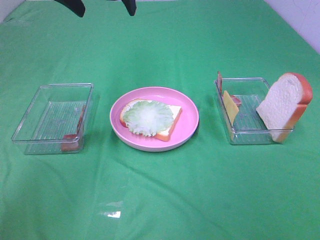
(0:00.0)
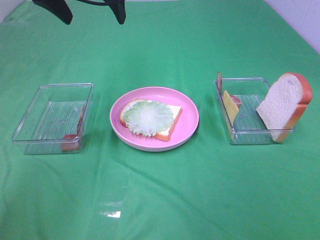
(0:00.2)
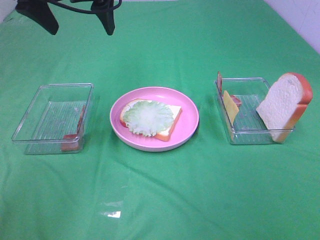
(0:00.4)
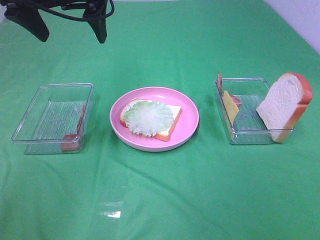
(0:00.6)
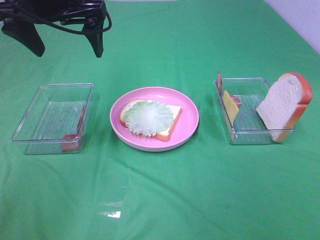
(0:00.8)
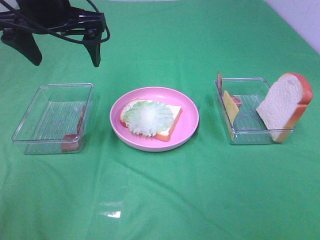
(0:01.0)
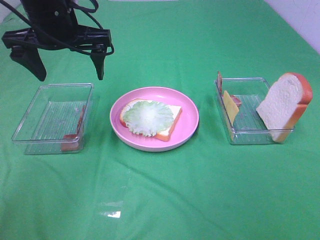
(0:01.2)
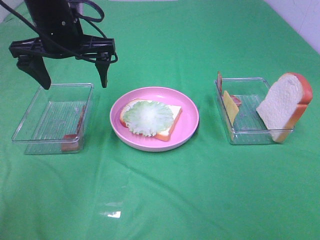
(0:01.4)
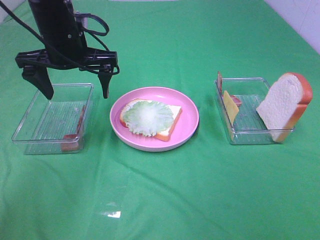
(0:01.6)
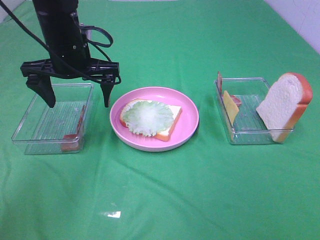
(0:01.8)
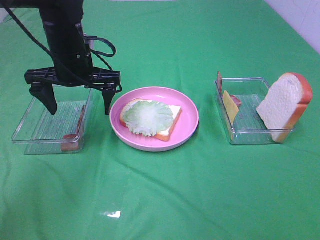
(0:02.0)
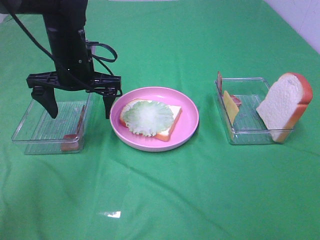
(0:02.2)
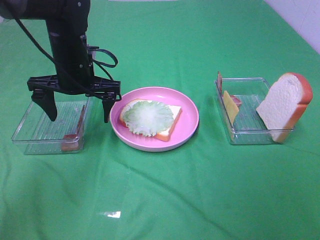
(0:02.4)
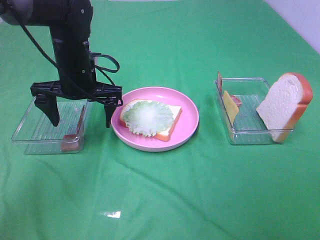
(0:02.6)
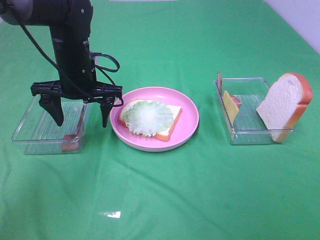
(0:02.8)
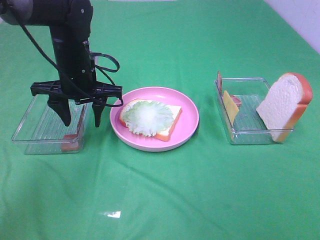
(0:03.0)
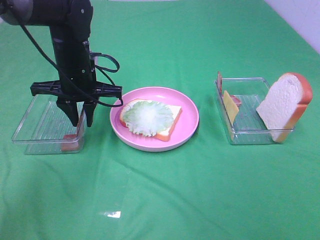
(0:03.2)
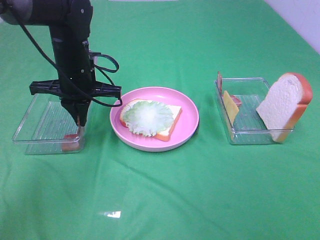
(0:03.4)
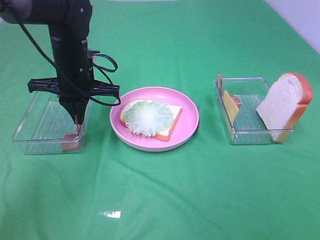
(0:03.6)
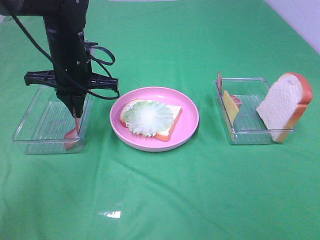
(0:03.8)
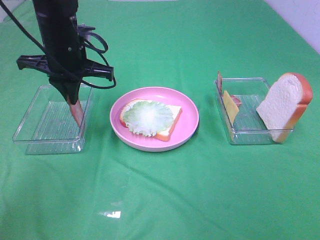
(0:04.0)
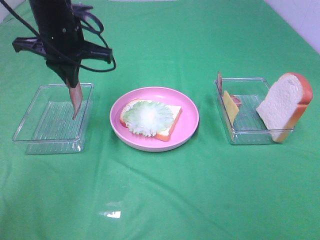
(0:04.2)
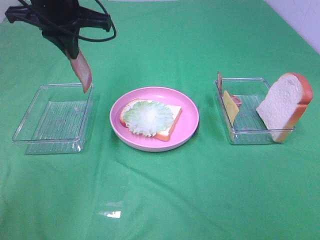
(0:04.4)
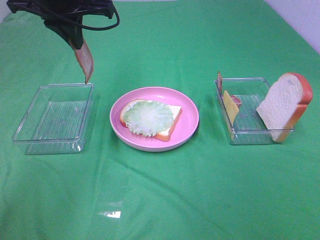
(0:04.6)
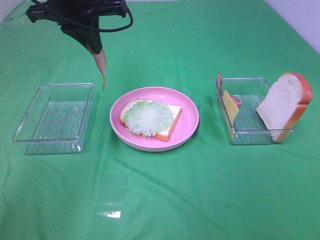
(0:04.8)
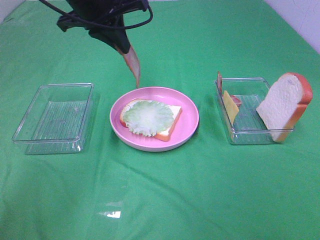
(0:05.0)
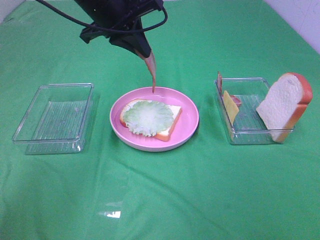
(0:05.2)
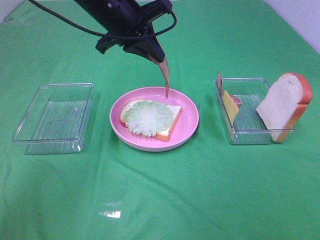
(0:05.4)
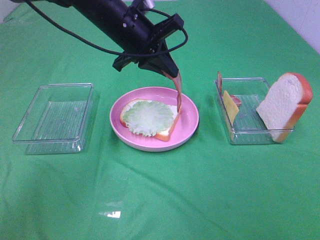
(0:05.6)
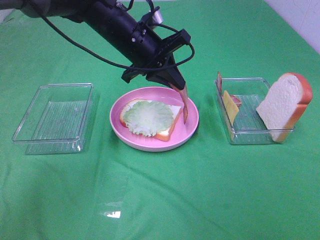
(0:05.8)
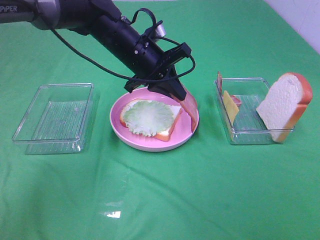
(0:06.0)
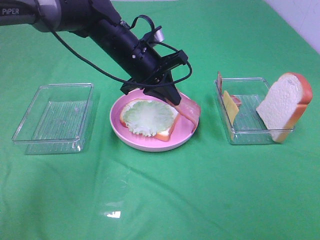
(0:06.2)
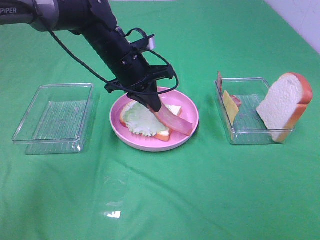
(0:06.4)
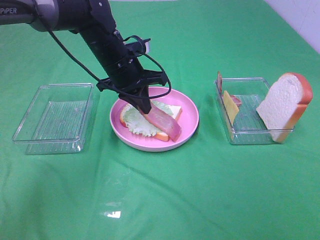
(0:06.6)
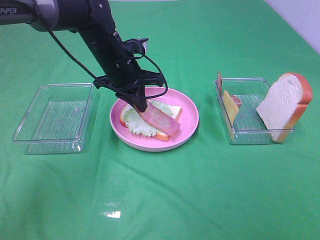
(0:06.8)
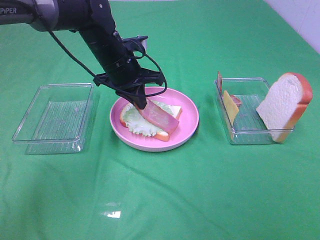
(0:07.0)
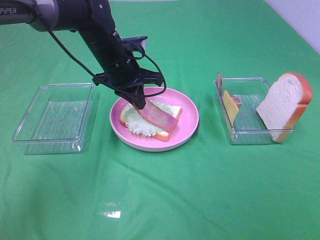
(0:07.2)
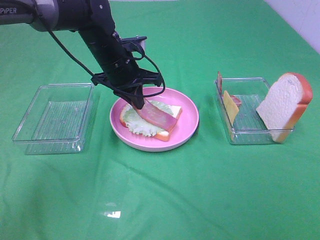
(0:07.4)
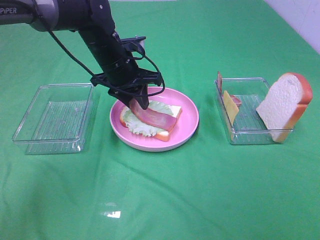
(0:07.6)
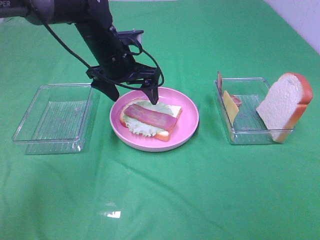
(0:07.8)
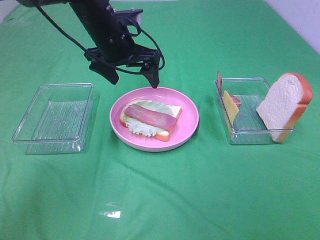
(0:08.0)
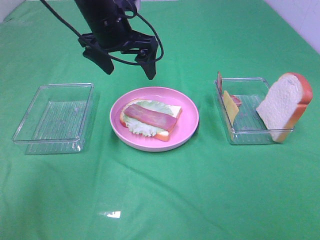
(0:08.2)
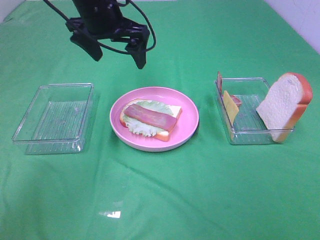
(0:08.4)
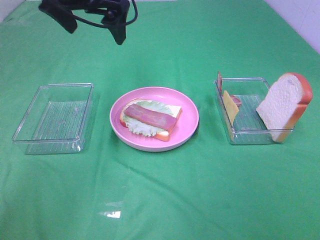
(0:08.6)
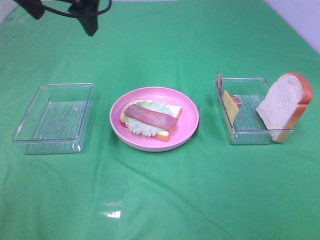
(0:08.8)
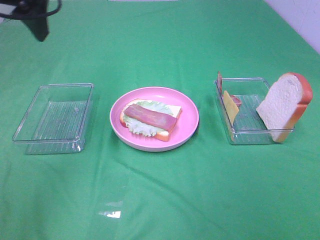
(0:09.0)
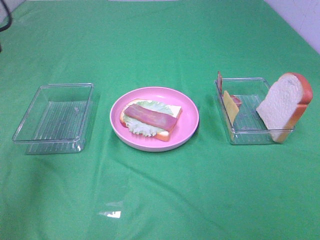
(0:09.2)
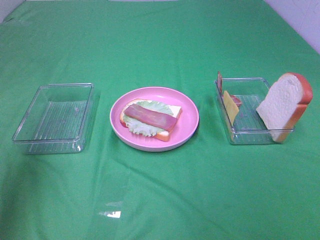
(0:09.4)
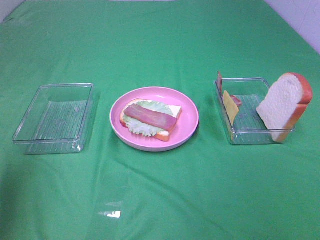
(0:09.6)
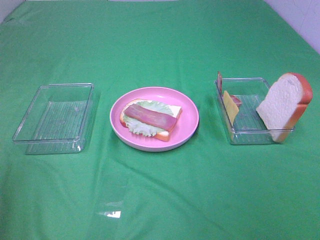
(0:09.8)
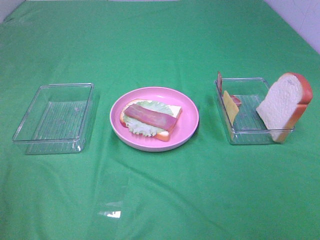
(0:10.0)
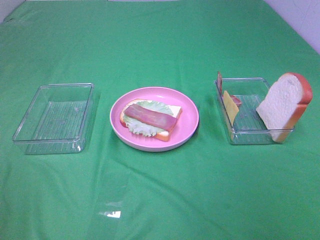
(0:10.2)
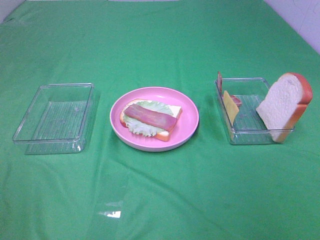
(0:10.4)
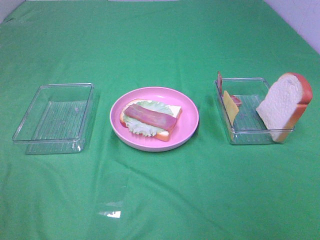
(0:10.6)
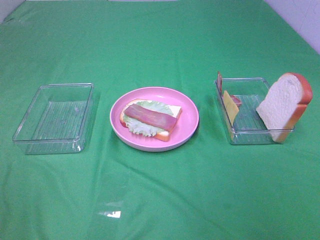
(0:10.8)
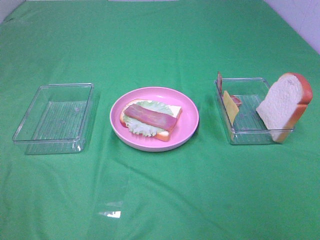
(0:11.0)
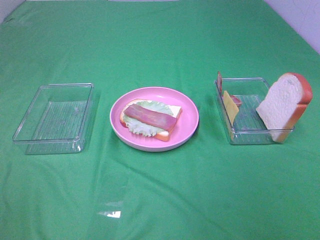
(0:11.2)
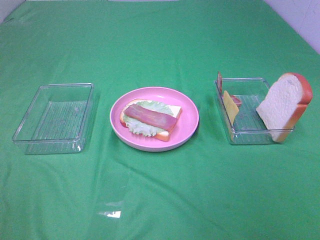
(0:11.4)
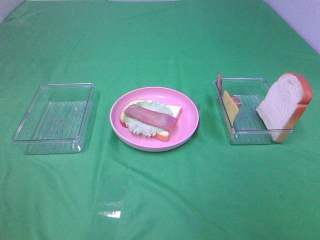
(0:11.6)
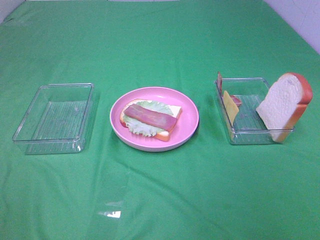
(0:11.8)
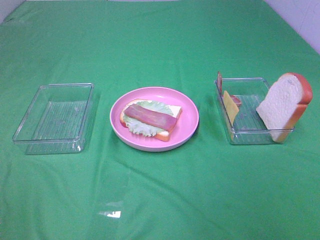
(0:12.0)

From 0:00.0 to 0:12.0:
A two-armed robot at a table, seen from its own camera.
Task of the whole recording: Make sandwiches.
Step, from 0:00.0 to 0:03.6: Left hand:grab the bacon.
Step, from 0:03.8 to 0:07.8: Left hand:place bacon on lettuce slice.
From 0:00.0 to 0:01.6: The left gripper moves downward, roughly 10 cm.
From 0:01.6 to 0:03.0: The left gripper travels downward by some 5 cm, and closes up.
From 0:03.0 to 0:04.4: The left gripper is displaced upward by approximately 15 cm, and closes up.
From 0:04.4 to 0:06.0: The left gripper shifts roughly 15 cm downward and to the right.
From 0:06.0 to 0:07.6: The left gripper opens up.
From 0:07.6 to 0:09.0: The left gripper heads upward, to the left and backward, covering approximately 25 cm, and opens its fingers.
From 0:09.0 to 0:10.4: The left gripper moves backward, some 30 cm.

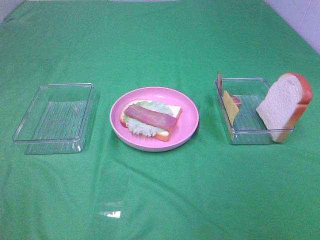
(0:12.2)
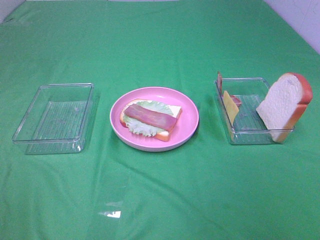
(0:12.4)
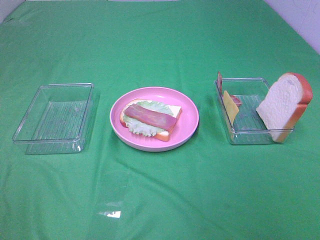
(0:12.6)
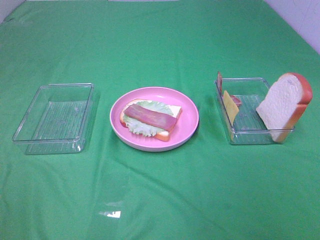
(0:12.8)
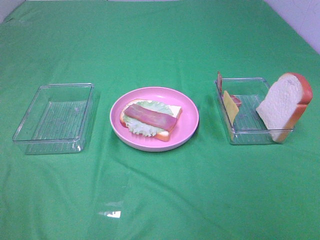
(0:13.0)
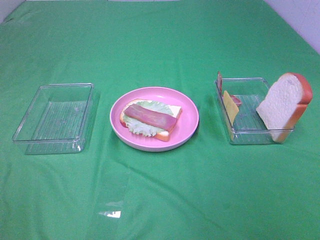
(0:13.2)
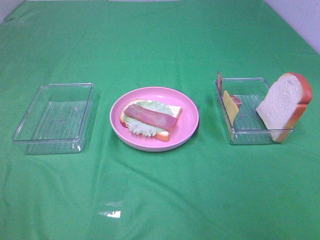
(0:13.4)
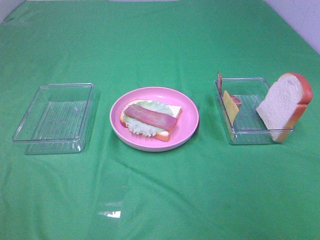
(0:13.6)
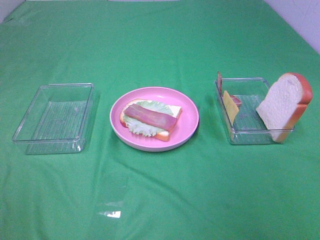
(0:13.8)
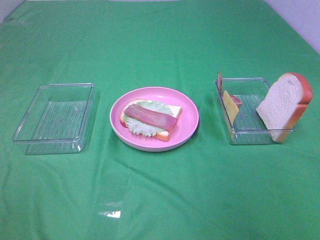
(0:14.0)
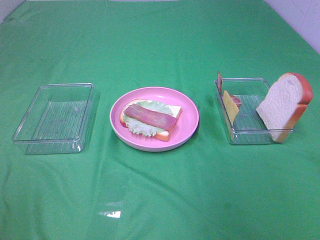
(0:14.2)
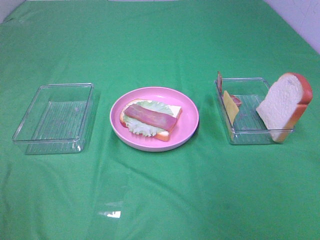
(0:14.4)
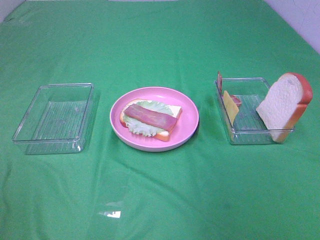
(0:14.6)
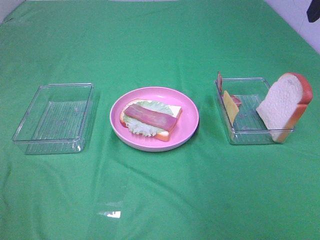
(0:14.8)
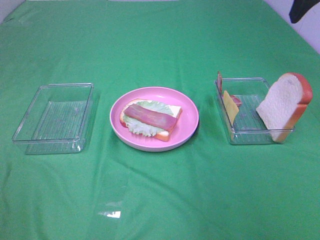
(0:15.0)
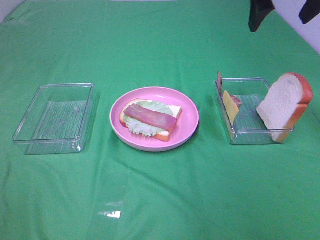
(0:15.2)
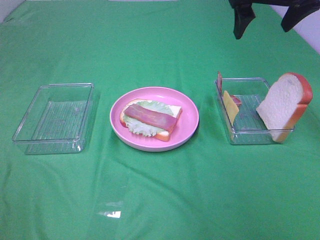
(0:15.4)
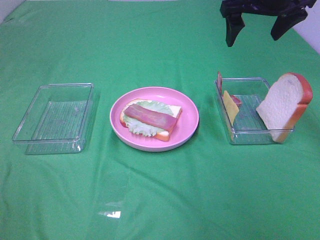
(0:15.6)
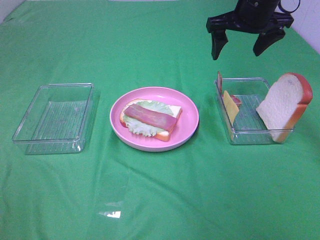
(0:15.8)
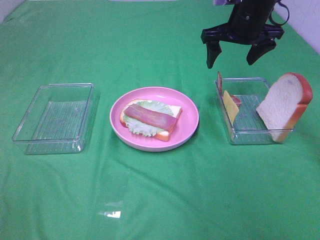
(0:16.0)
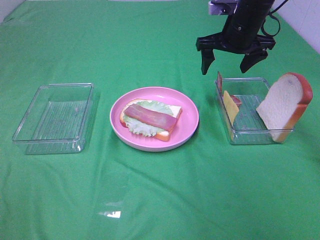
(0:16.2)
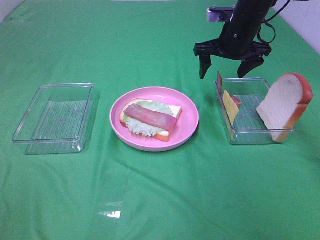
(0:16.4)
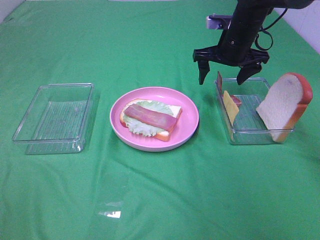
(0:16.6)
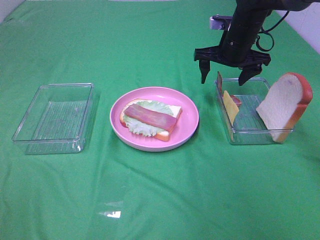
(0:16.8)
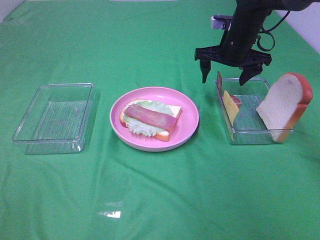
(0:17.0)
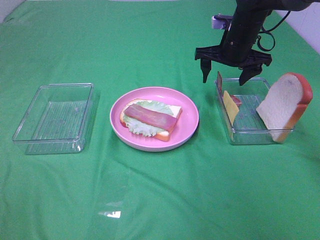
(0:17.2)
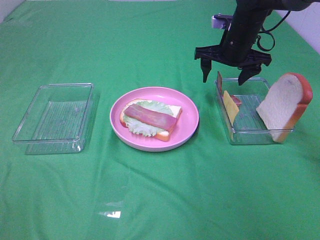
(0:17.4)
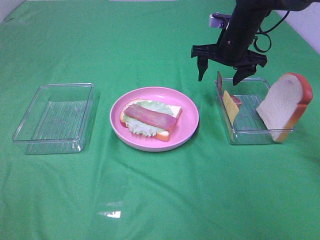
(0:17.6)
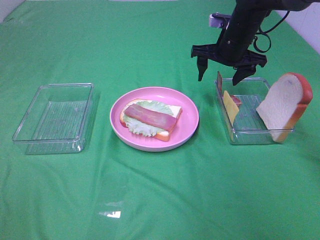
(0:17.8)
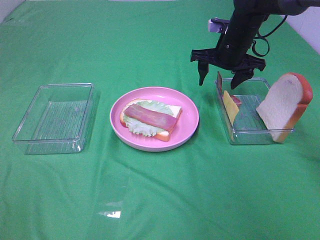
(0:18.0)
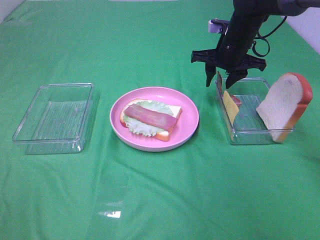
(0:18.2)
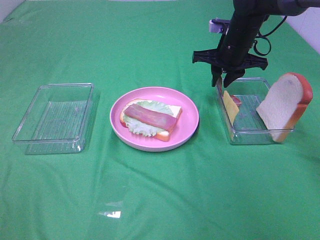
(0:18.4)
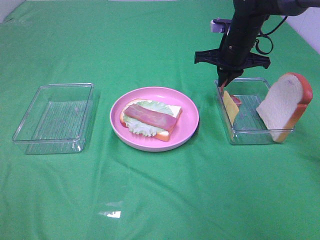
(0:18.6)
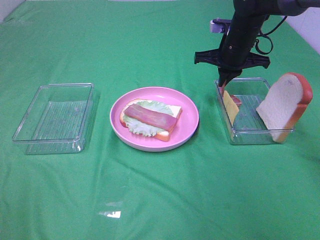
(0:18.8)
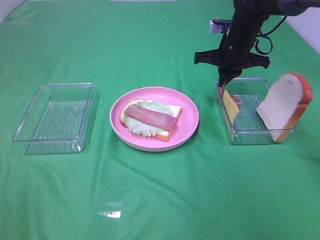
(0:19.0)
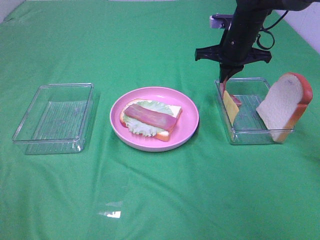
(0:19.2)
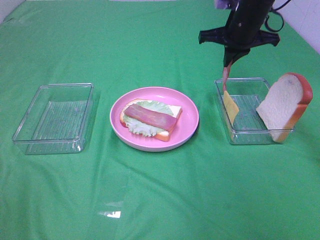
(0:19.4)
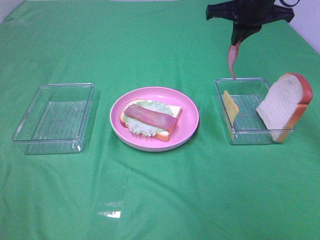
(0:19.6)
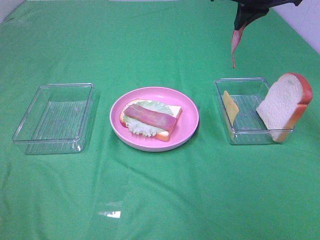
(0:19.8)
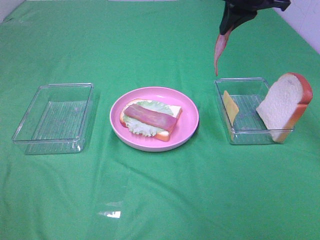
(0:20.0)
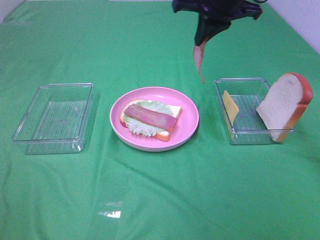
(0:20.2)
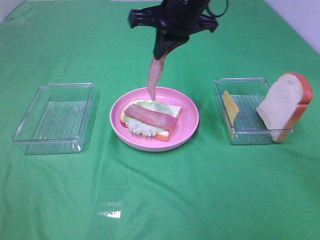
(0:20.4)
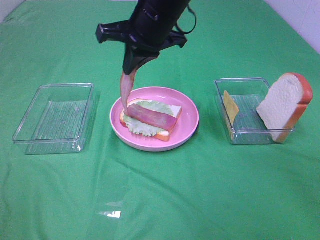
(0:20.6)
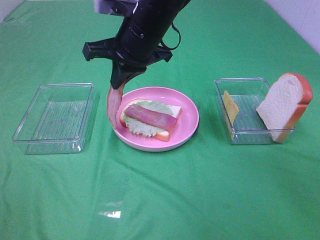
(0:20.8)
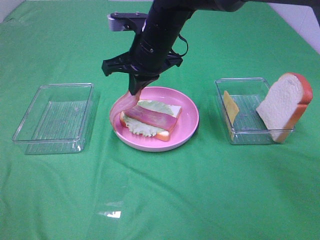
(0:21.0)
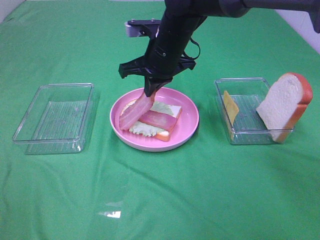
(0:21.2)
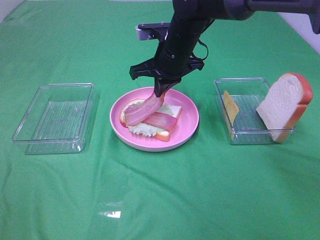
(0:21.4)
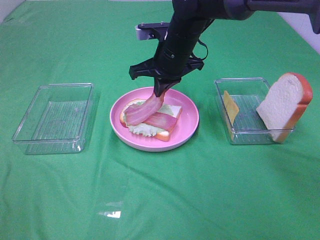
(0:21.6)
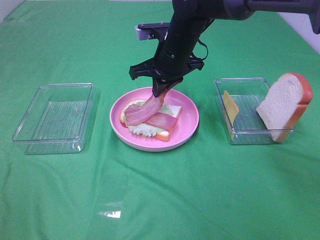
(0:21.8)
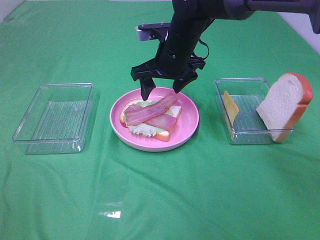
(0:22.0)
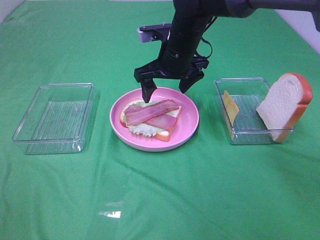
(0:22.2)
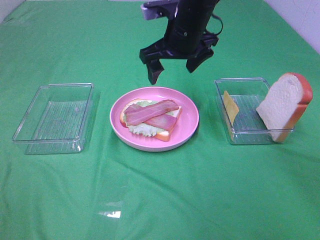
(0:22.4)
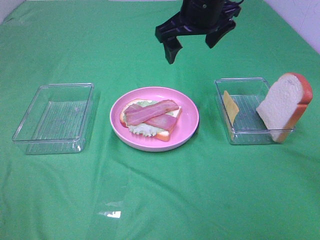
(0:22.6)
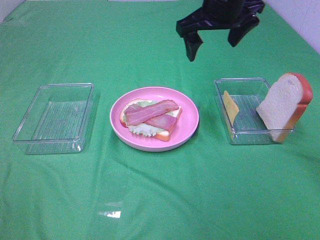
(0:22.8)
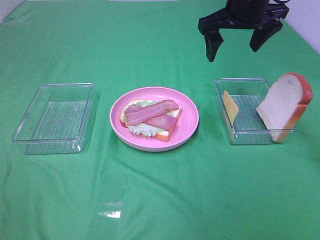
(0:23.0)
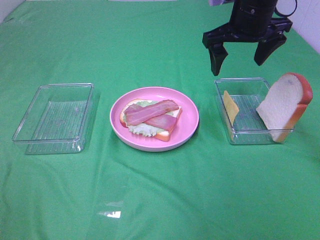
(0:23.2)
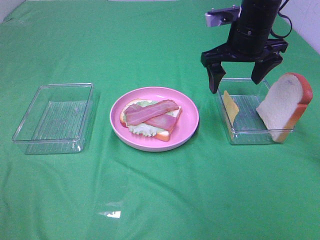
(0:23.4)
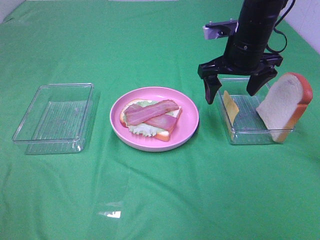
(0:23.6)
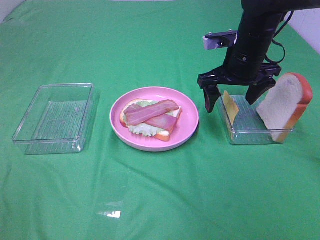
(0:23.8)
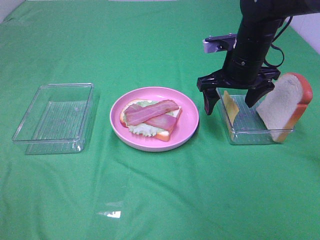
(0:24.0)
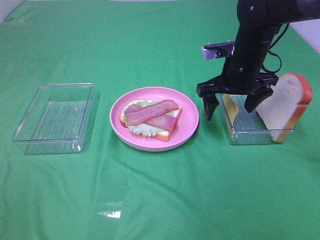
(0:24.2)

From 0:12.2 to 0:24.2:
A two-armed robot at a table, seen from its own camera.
Task of the whole recording: Make sandwiches.
Step, from 0:12.2 to 0:19.2: Right hand:grab the bacon.
Step, from 0:19.4 to 0:22.0: Right hand:place bacon on bacon.
From 0:13.8 to 0:15.2: The right gripper moves forward, approximately 30 cm.
From 0:15.2 to 0:16.6: The right gripper is displaced downward and forward by about 20 cm.
From 0:16.6 to 0:18.2: The right gripper closes its fingers.
From 0:18.2 to 0:19.8: The right gripper goes some 15 cm upward, and closes its fingers.
From 0:19.8 to 0:21.2: The right gripper heads to the left and downward, covering about 20 cm.
From 0:21.2 to 0:22.6: The right gripper travels upward and to the right by approximately 10 cm, and opens.
From 0:22.6 to 0:24.2: The right gripper travels downward and to the right by about 15 cm.
